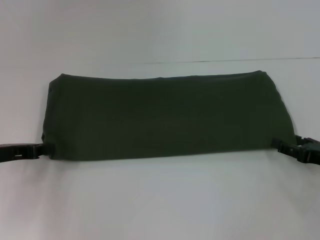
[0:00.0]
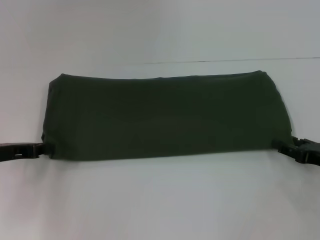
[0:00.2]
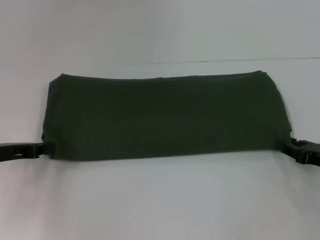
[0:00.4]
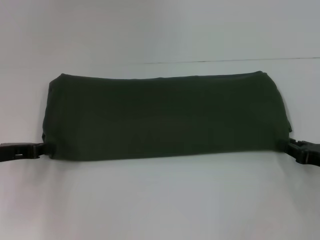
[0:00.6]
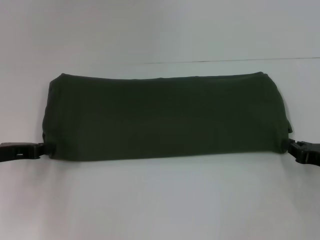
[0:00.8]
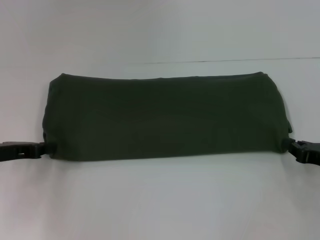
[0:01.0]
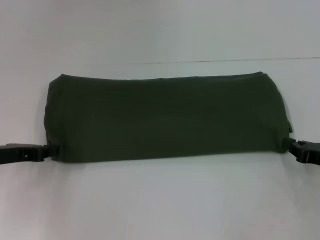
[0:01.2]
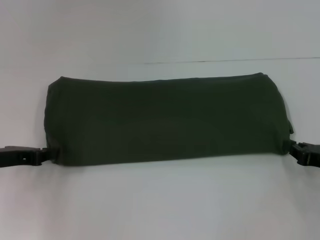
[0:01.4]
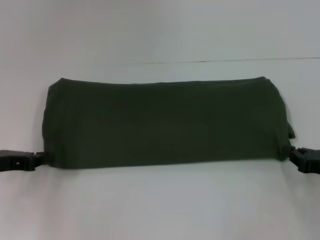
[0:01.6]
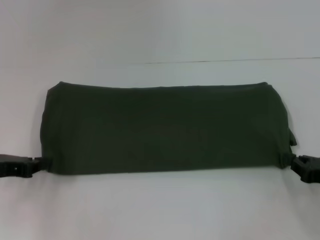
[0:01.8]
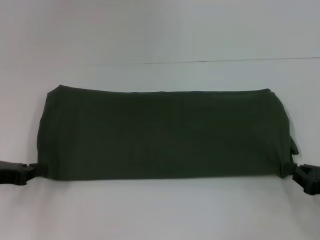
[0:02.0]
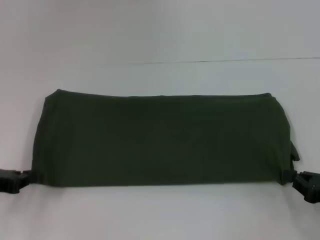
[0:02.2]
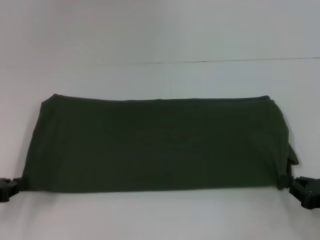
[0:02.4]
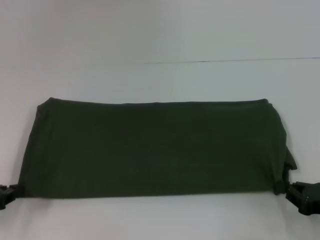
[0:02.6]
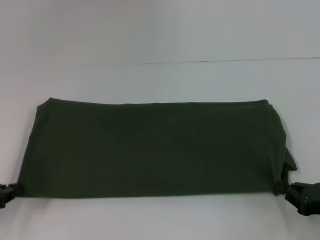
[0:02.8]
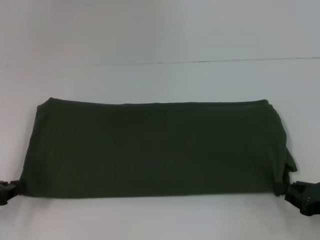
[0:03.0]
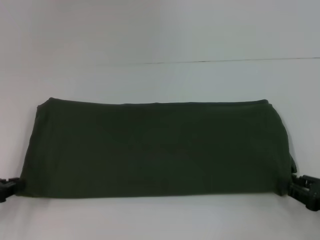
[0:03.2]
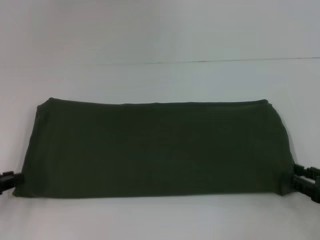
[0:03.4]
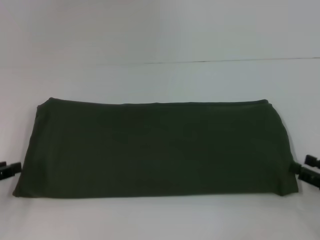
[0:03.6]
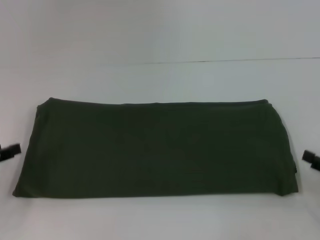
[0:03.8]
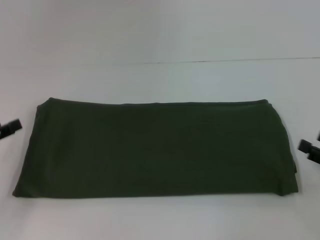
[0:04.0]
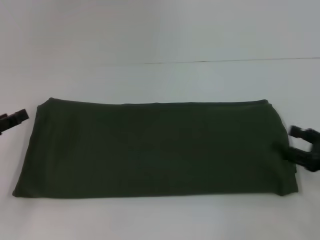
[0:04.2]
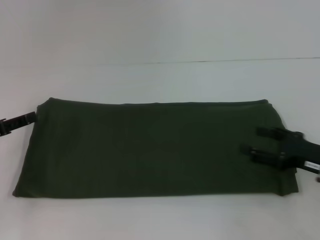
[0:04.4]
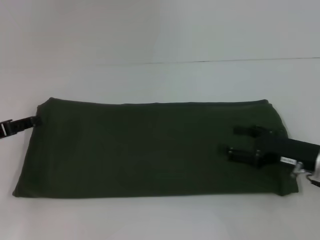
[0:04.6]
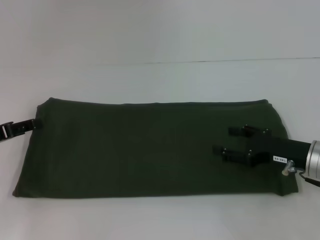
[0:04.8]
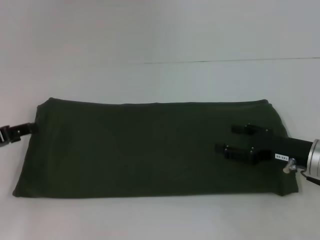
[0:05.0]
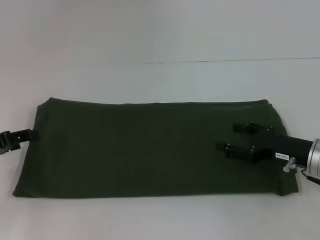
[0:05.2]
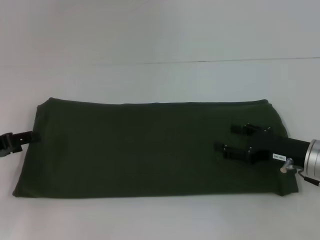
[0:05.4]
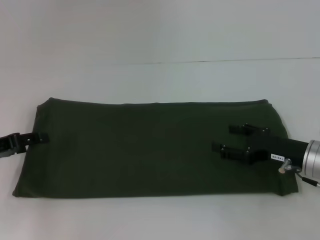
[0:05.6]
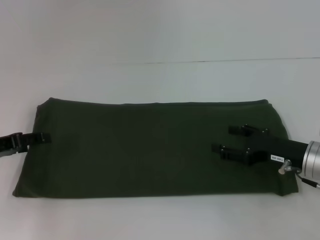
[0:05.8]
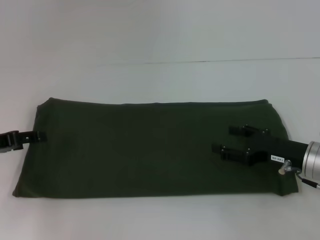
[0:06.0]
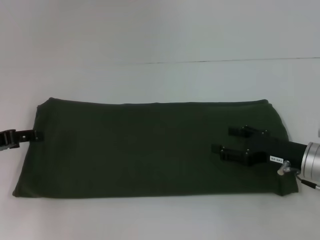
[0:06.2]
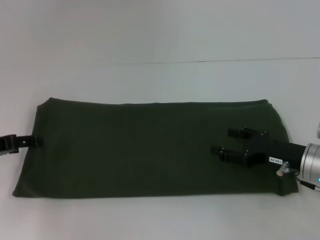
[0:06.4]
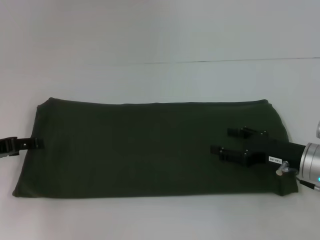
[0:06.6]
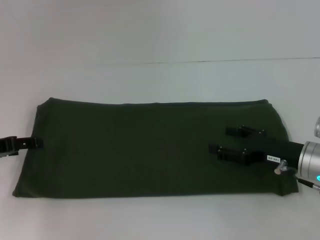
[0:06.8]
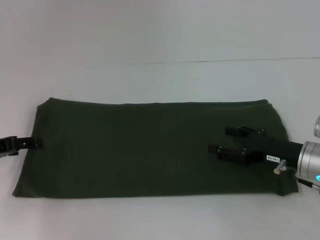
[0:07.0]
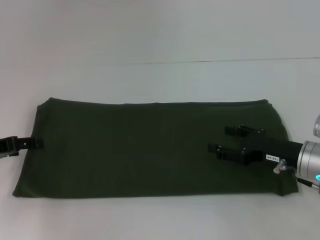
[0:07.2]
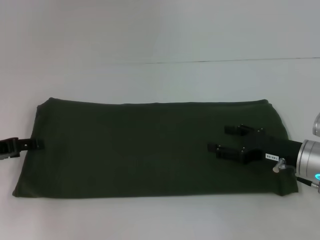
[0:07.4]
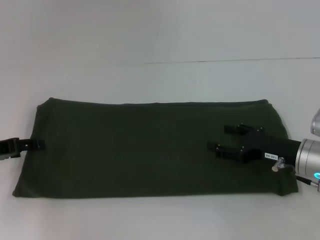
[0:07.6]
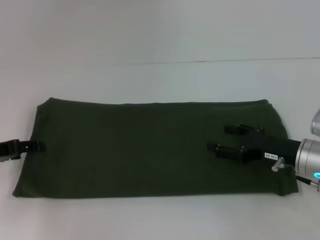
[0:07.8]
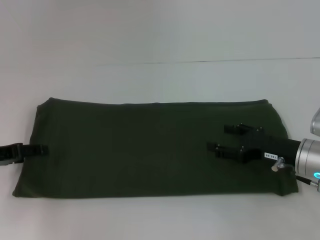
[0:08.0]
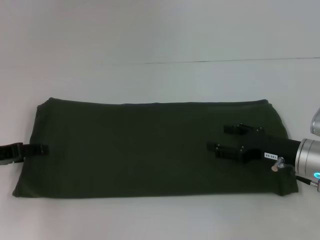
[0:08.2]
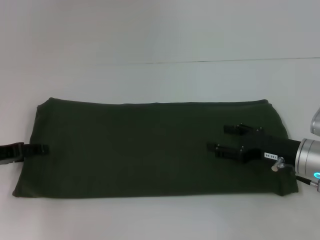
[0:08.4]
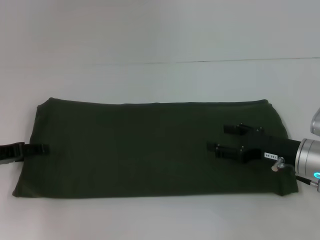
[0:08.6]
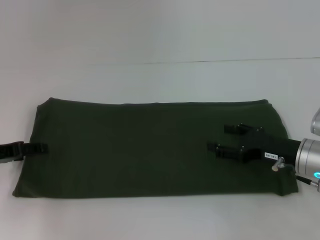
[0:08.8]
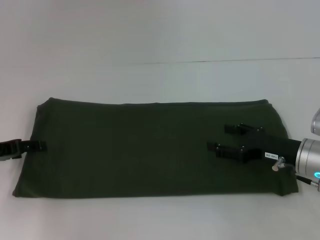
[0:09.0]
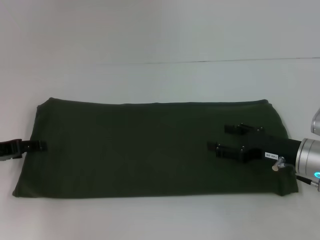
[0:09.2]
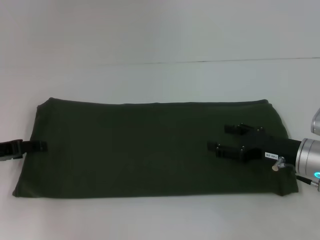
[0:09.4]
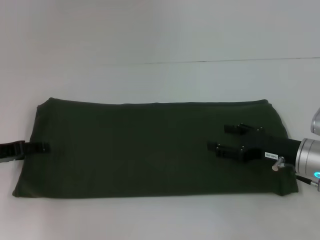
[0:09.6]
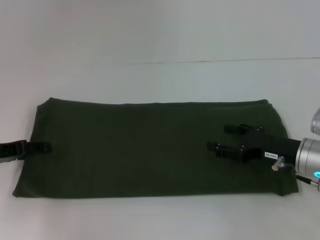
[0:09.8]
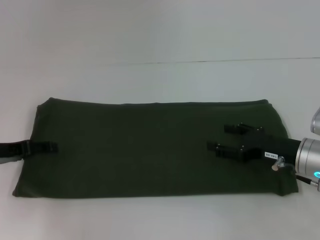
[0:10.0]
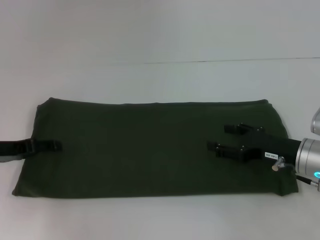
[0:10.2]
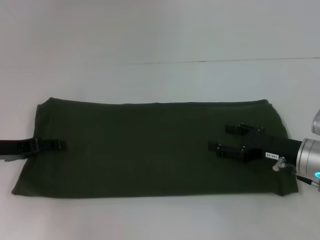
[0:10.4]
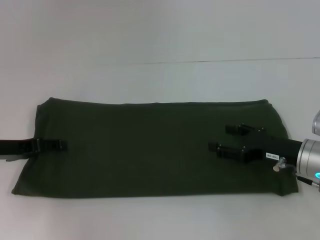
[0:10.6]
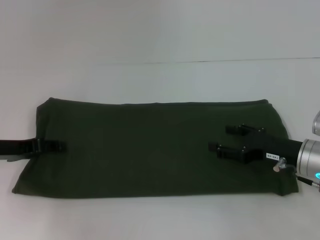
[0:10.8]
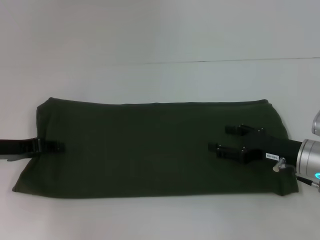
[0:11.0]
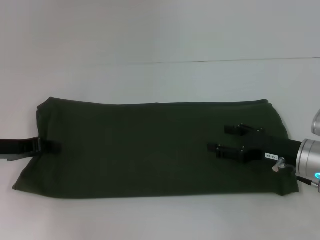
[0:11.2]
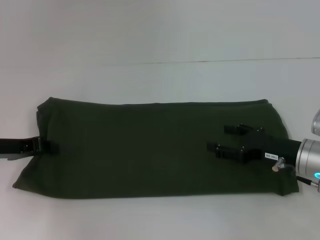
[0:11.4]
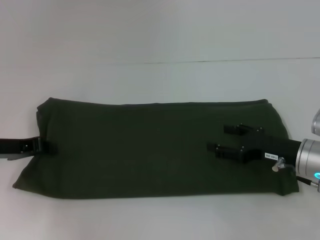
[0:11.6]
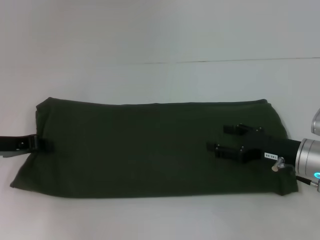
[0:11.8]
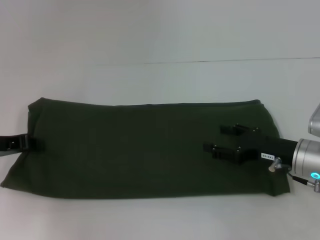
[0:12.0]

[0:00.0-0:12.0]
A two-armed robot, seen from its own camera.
0:00.0 to 0:01.6: The right gripper closes up.
0:01.6 to 0:03.0: The two grippers go some 5 cm backward.
0:03.0 to 0:04.4: The left gripper changes place by about 5 cm, and opens up; the right gripper moves forward, some 5 cm, and opens.
0:04.4 to 0:06.0: The right gripper ends up about 5 cm from where it was.
0:06.0 to 0:07.6: The two grippers keep their place.
0:07.6 to 0:09.0: The two grippers keep their place.
0:10.4 to 0:12.0: The left gripper closes.

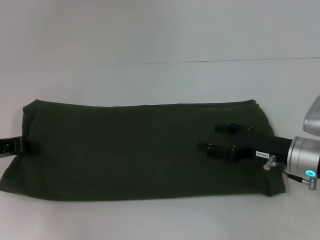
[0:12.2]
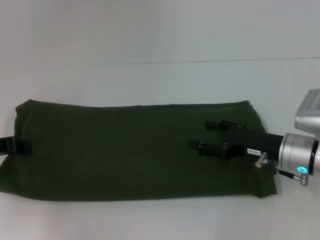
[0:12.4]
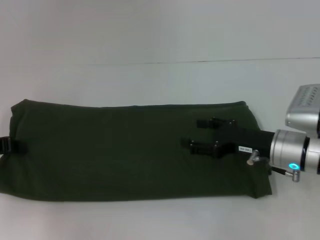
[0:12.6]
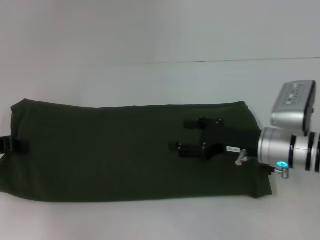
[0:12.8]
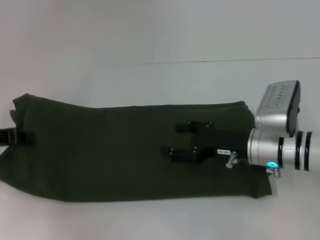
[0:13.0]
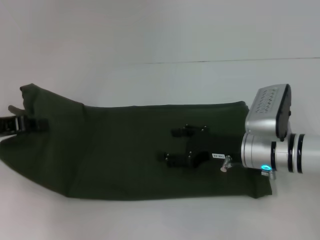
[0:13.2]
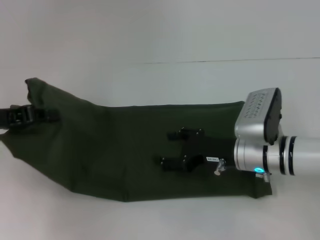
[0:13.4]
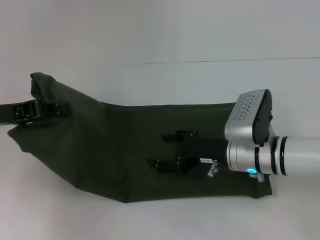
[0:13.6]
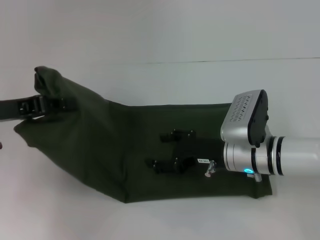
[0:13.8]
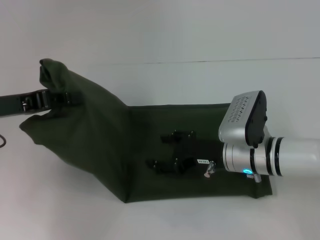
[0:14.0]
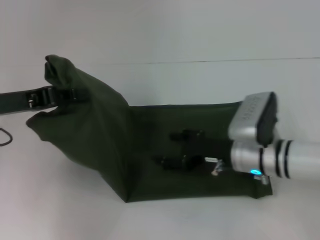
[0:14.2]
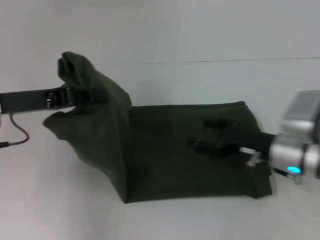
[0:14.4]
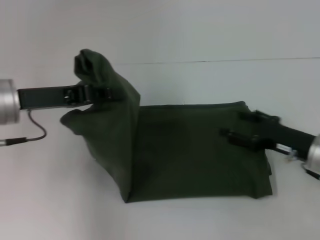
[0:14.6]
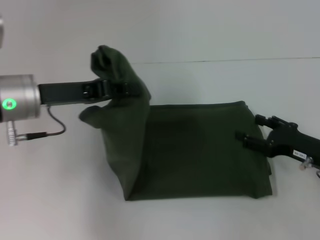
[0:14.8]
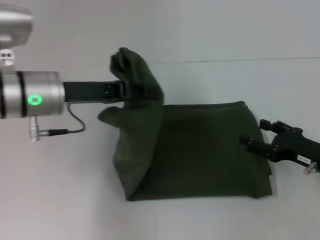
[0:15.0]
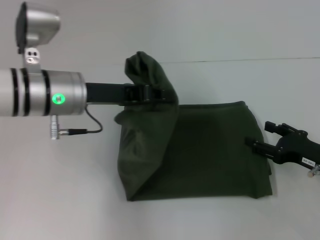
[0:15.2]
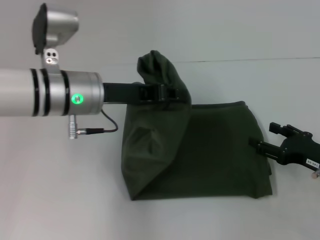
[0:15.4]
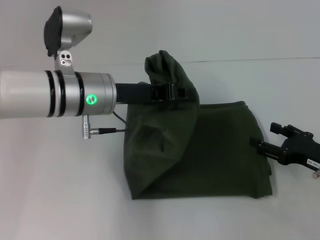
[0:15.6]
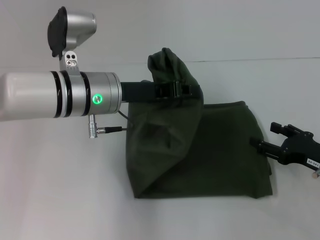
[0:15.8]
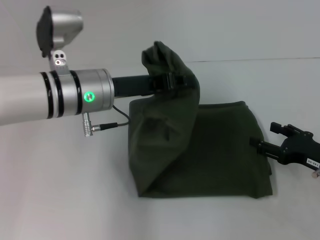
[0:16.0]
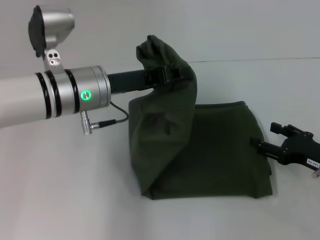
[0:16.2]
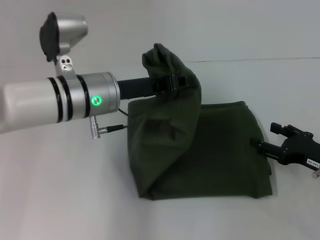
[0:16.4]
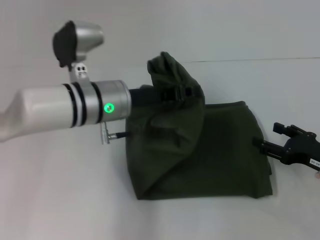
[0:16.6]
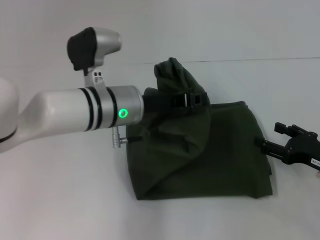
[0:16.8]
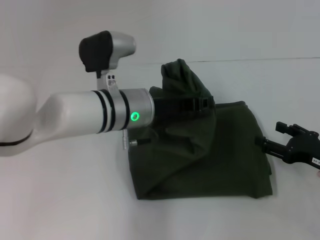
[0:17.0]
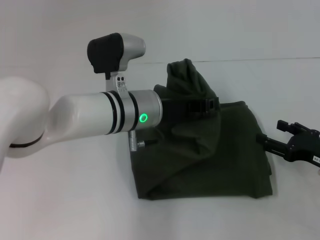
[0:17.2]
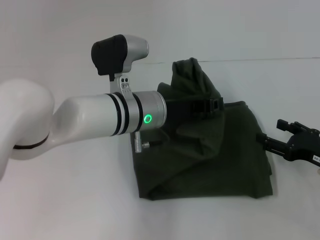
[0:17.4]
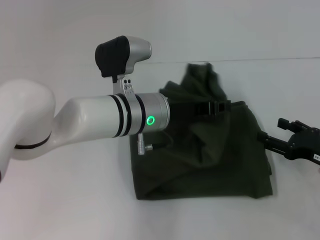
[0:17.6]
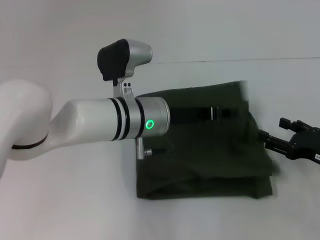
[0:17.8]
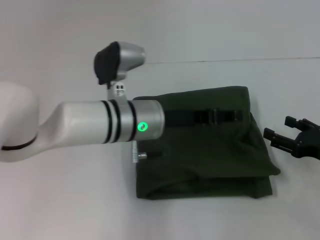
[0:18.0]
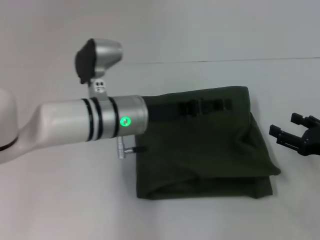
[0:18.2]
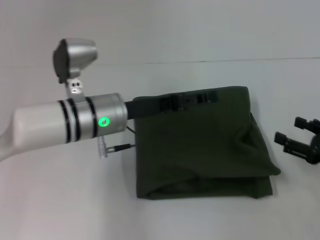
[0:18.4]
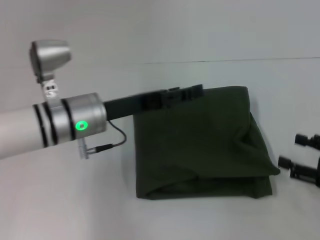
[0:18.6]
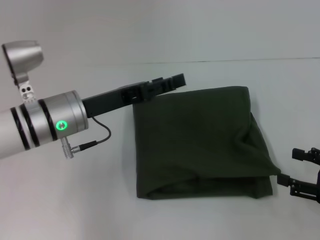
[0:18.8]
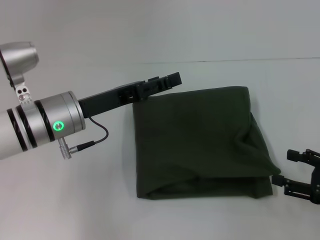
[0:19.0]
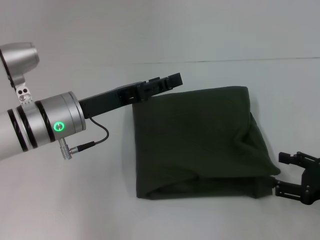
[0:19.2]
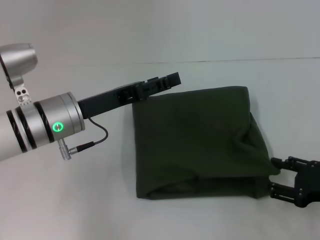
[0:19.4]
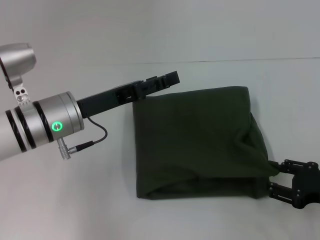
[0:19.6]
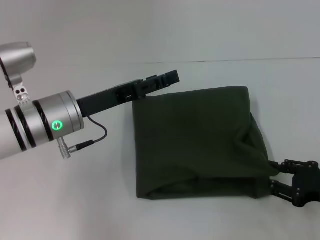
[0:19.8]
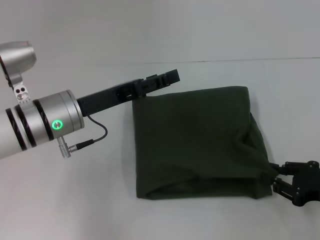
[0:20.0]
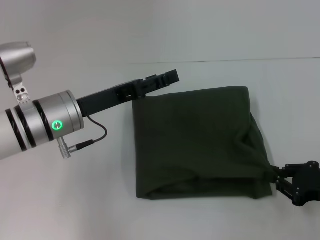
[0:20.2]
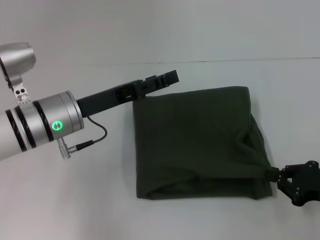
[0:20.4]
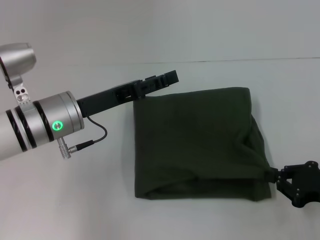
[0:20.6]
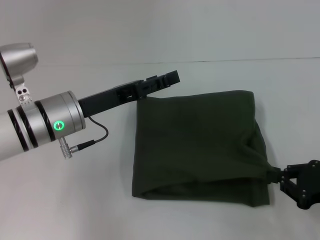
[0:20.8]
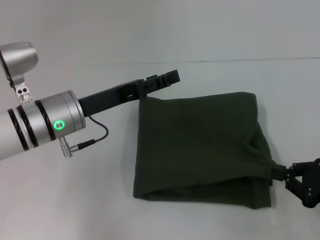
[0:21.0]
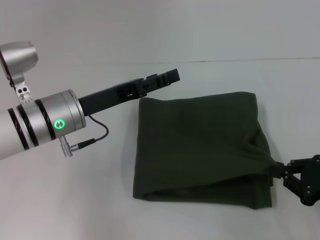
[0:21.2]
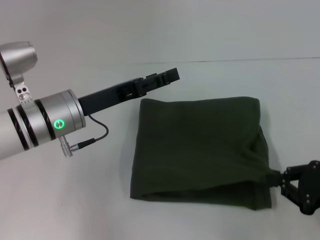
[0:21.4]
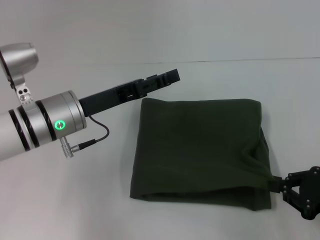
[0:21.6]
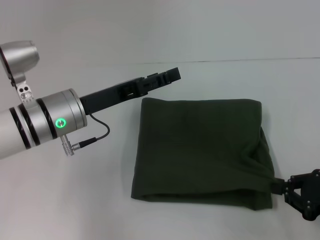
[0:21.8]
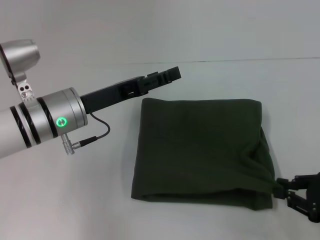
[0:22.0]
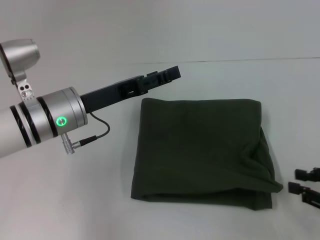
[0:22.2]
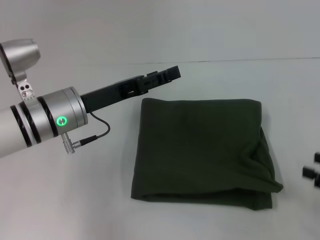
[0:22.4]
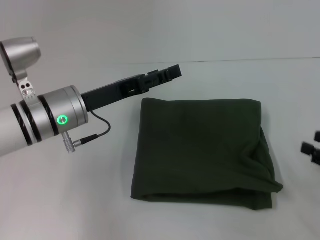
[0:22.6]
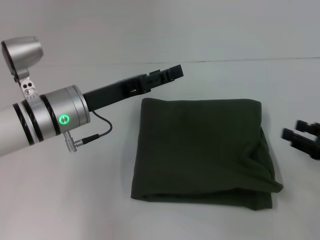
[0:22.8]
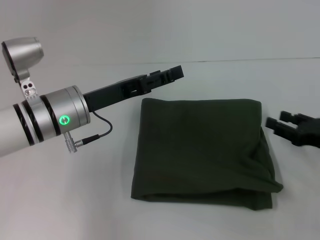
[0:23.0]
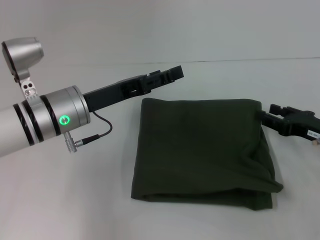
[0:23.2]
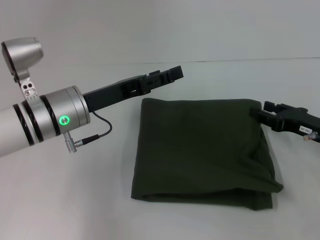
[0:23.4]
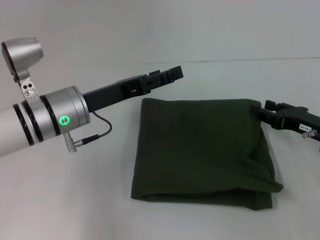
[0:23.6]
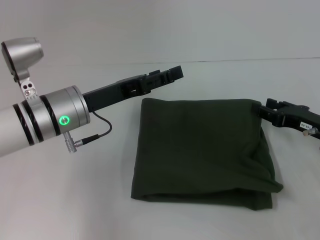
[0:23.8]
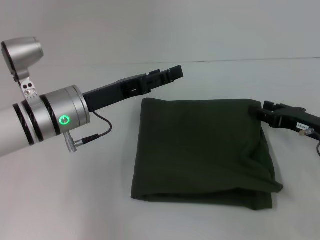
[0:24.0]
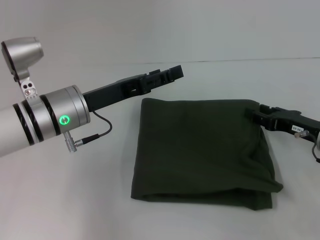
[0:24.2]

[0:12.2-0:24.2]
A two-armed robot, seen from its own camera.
Step, 0:12.2 to 0:17.8: Fold the clothes with your left hand.
0:12.2 to 0:13.8: The right gripper is displaced to the left by roughly 10 cm, while the left gripper heads upward, covering approximately 5 cm.
0:13.8 to 0:15.2: Both grippers move to the right, about 15 cm.
0:15.2 to 0:16.6: The left gripper moves to the right, approximately 5 cm.
0:16.6 to 0:18.2: The left gripper opens.
0:18.2 to 0:19.8: The left gripper is displaced to the left by some 10 cm.
0:19.8 to 0:21.2: The right gripper closes up.
0:21.2 to 0:22.6: The right gripper opens.
0:22.6 to 0:24.2: The right gripper heads forward and to the left, covering about 15 cm.
